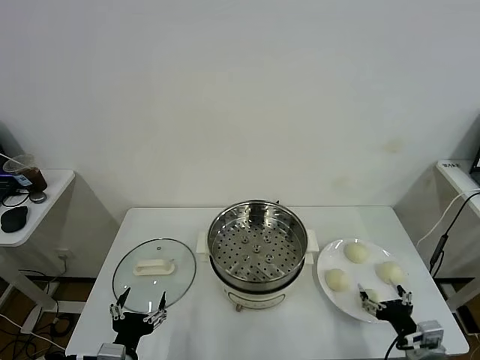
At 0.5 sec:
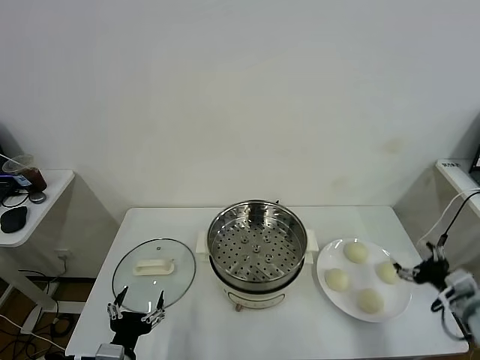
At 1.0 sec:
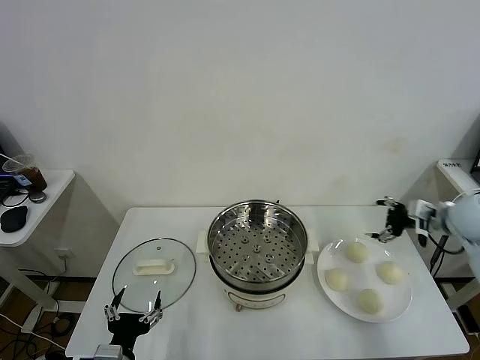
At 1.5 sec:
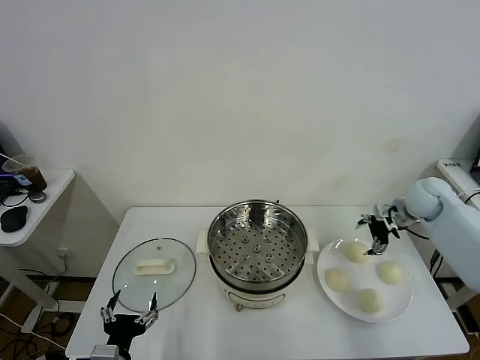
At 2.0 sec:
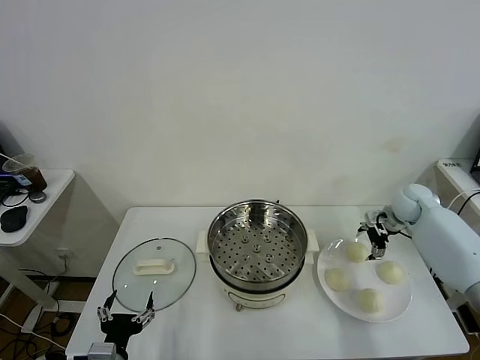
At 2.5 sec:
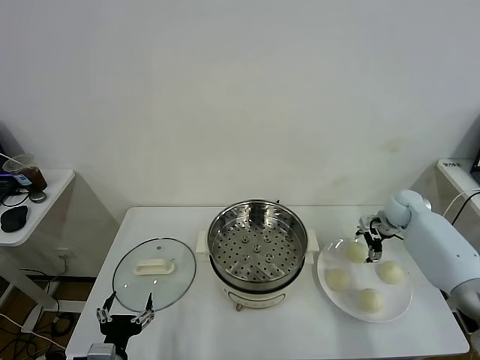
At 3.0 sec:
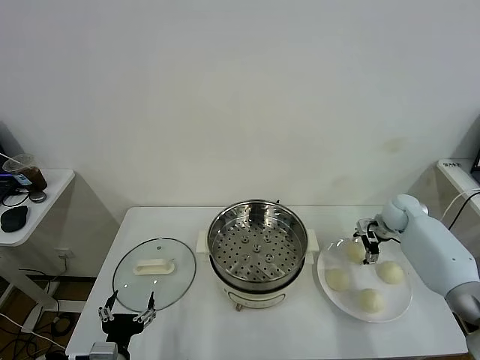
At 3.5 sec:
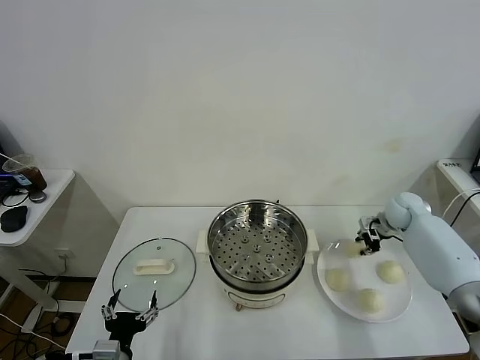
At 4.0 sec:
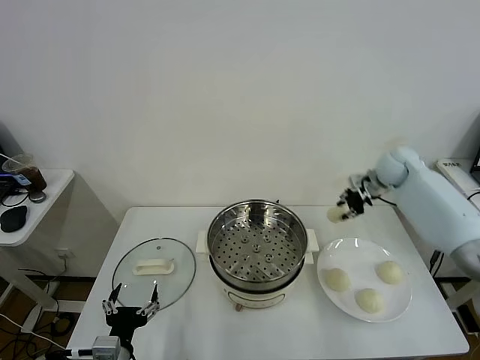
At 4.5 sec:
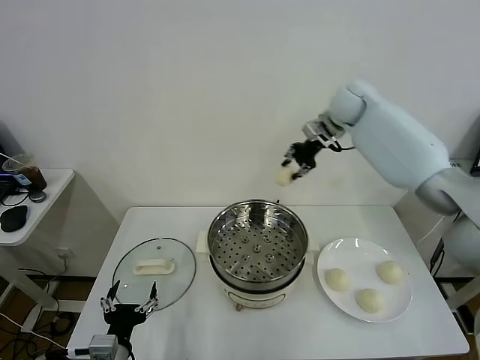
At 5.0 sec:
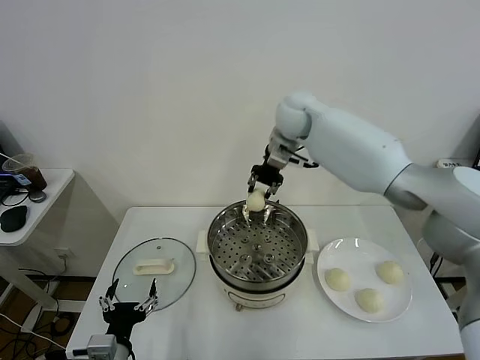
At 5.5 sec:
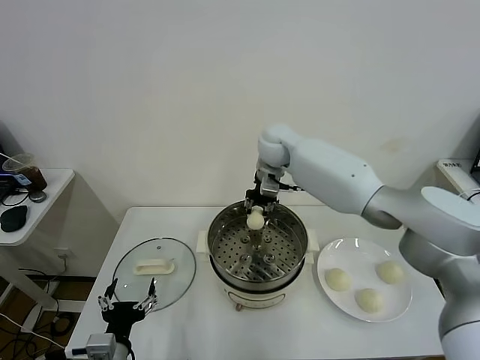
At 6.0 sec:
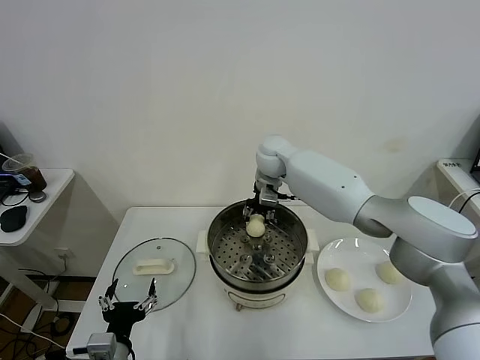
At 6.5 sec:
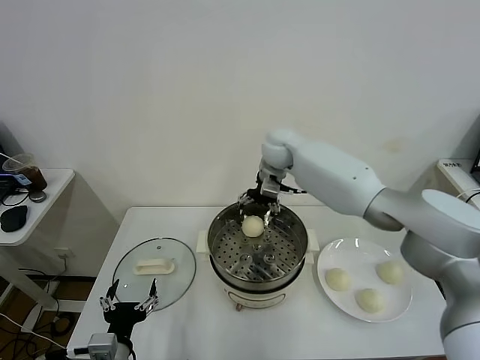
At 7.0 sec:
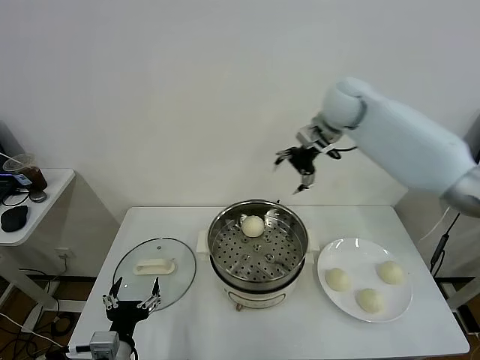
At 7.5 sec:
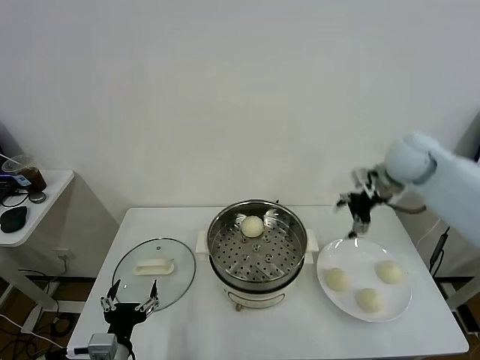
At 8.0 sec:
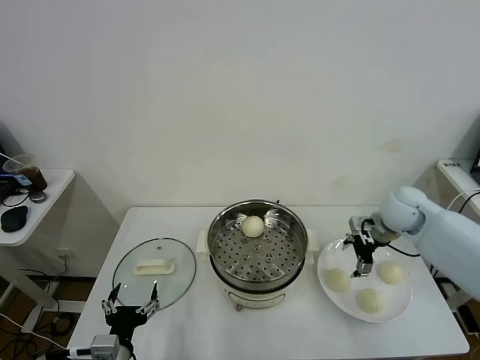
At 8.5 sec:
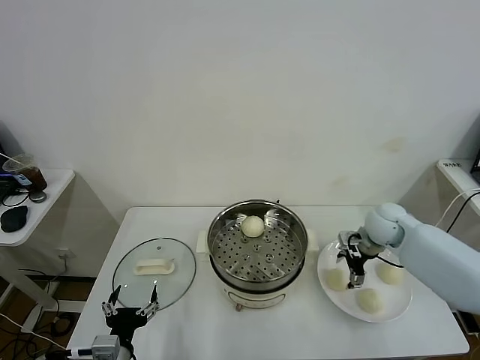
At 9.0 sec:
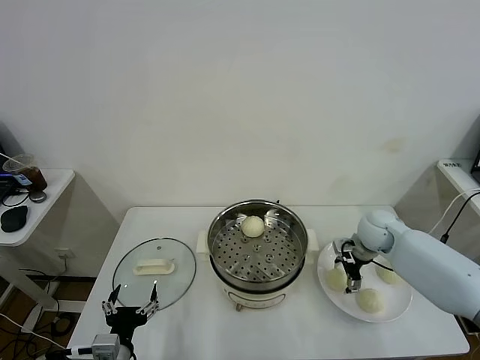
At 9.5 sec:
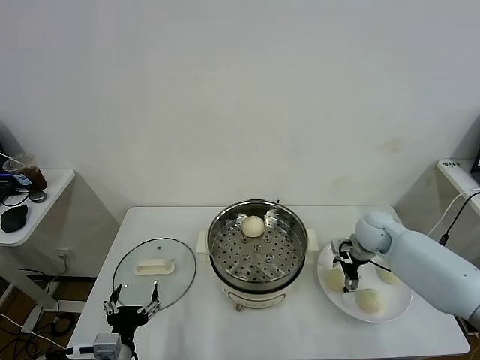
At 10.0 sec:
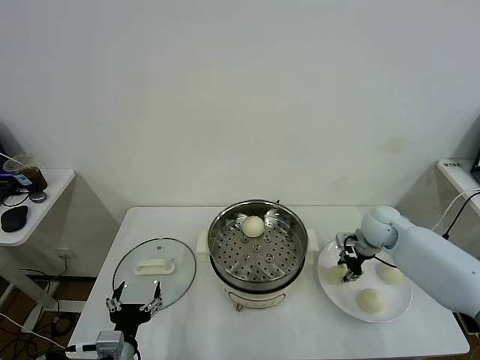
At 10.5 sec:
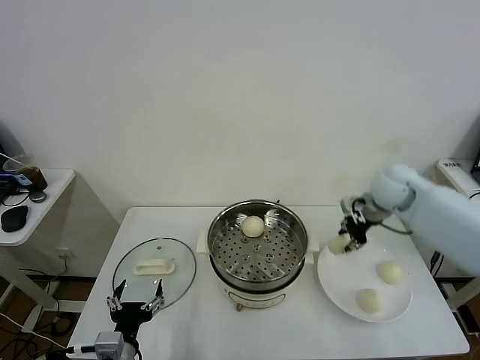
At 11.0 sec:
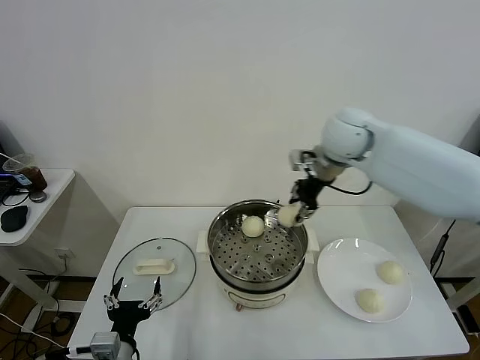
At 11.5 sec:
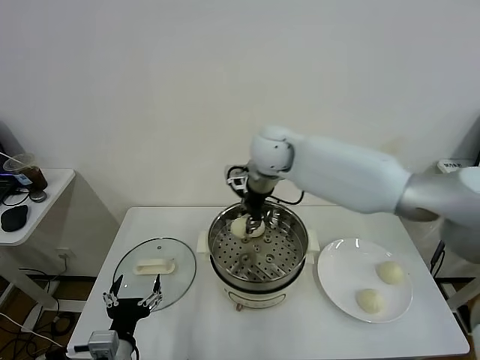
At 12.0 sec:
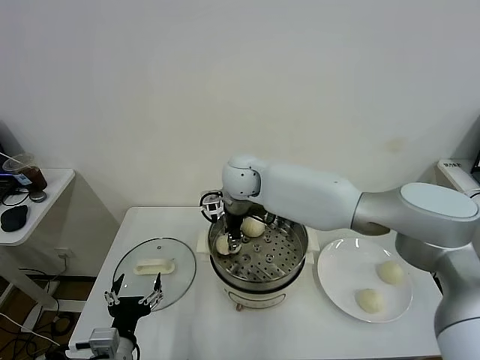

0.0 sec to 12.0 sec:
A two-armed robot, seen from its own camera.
Task of the whole recording: take steamed baozi put them in steamer.
Step, 0.0 sec to 3.0 sec: Grasp the baozi in the plate with right gripper.
Step, 3.5 sec to 6.0 sec: Place the baozi on the steamer with right gripper.
Step, 6.5 sec to 9.5 sec: Grasp the baozi in the plate with right gripper.
2.0 sec to 4.0 sec: The right gripper moves upward, to the left and forward, roughly 10 cm, and closes its fingers.
4.0 sec to 6.0 sec: The right gripper goes approximately 30 cm to the left.
6.0 sec to 8.0 sec: The right gripper goes approximately 30 cm to the right and backward, and opens its fingers.
8.0 sec to 10.0 sec: The right gripper moves downward, about 10 cm, and closes its fingers.
10.0 sec to 12.0 sec: The right gripper travels to the left by some 35 cm.

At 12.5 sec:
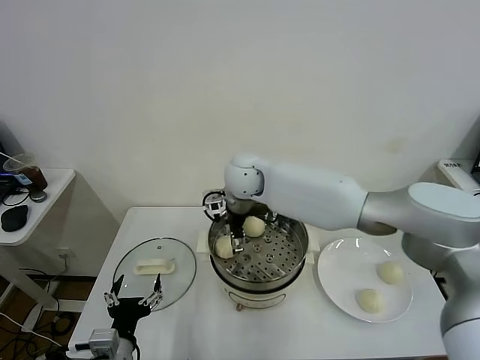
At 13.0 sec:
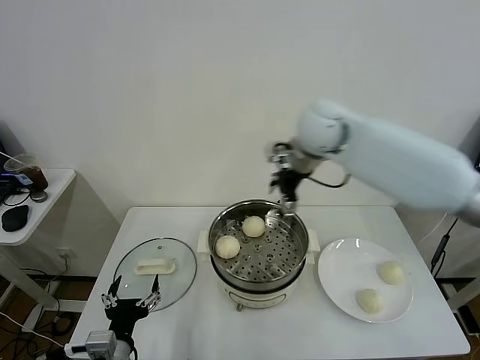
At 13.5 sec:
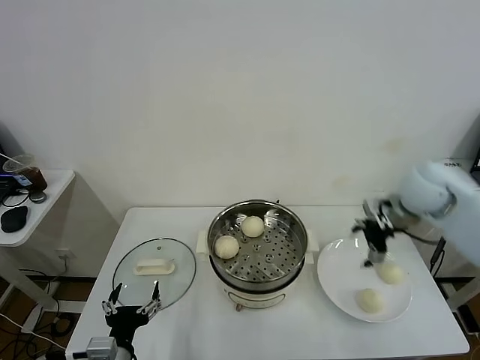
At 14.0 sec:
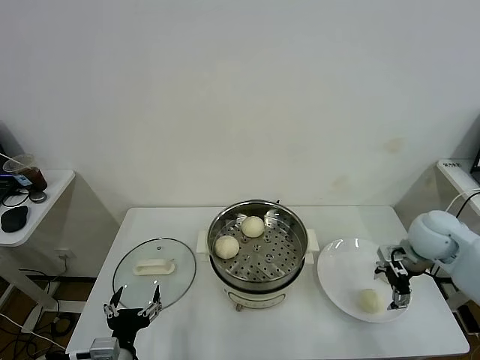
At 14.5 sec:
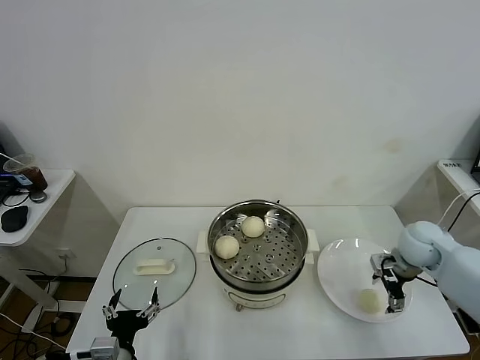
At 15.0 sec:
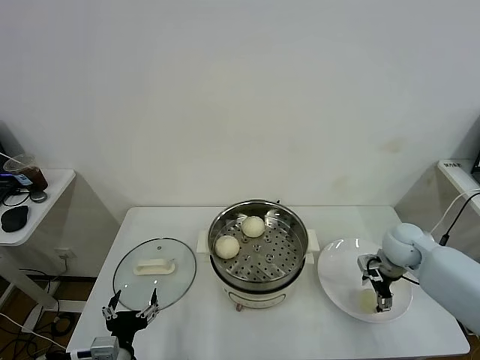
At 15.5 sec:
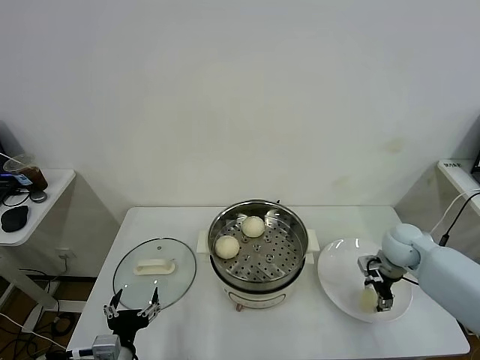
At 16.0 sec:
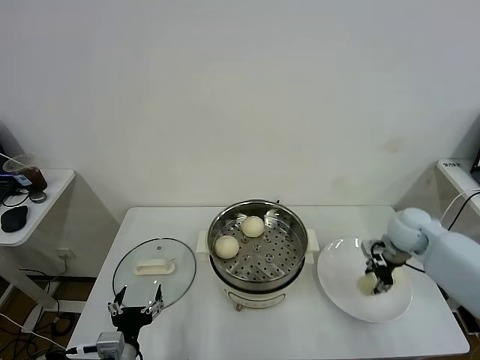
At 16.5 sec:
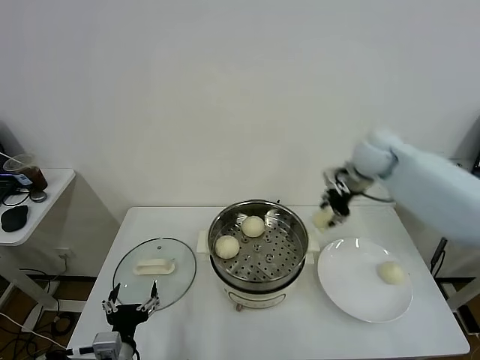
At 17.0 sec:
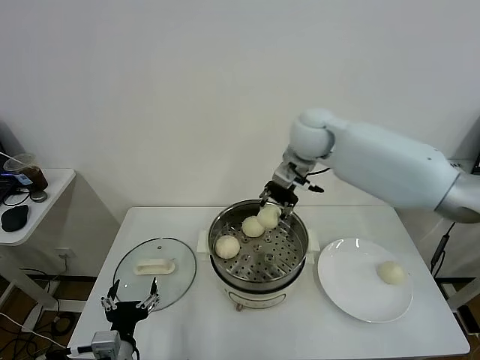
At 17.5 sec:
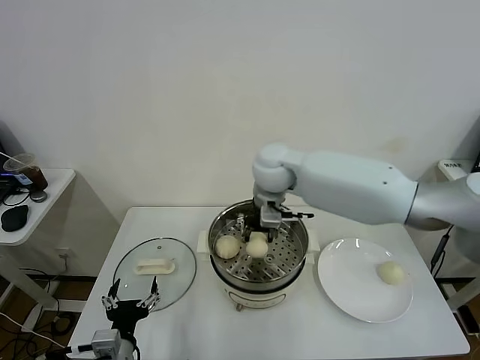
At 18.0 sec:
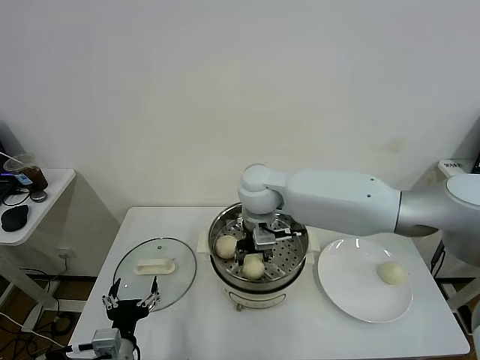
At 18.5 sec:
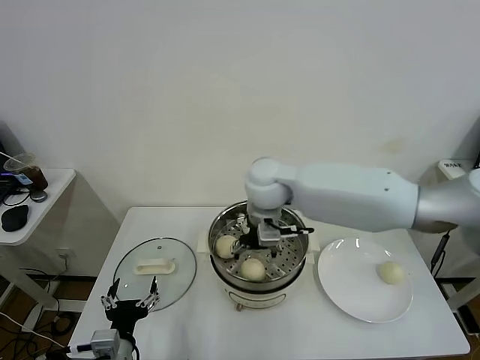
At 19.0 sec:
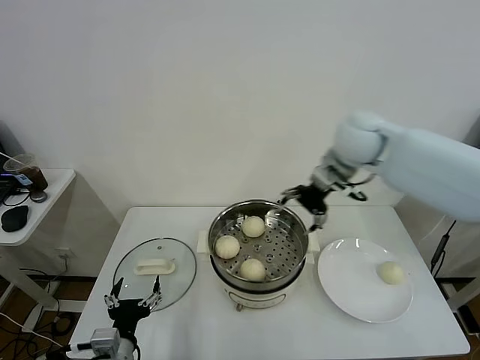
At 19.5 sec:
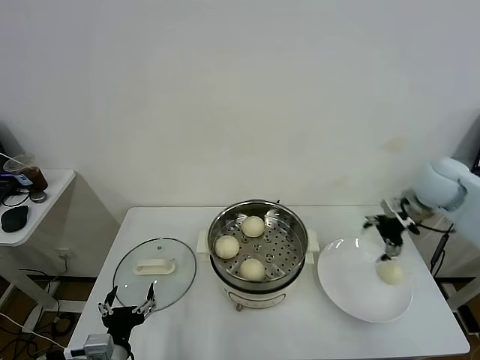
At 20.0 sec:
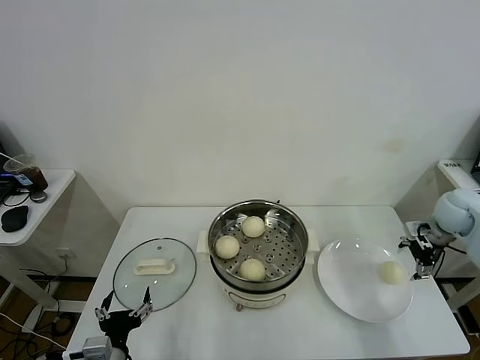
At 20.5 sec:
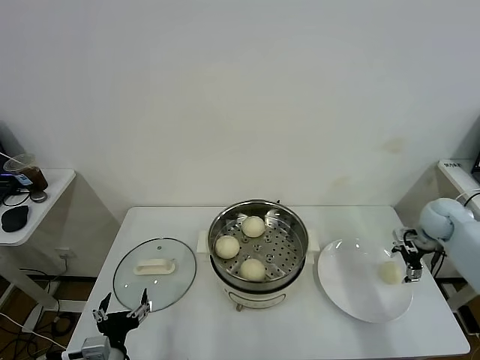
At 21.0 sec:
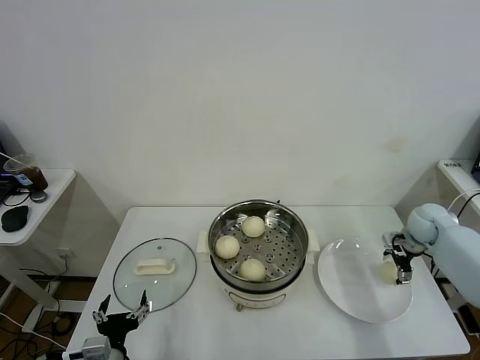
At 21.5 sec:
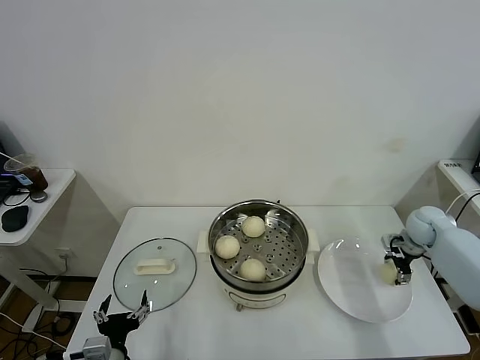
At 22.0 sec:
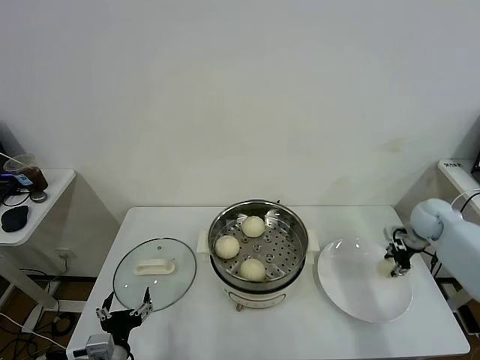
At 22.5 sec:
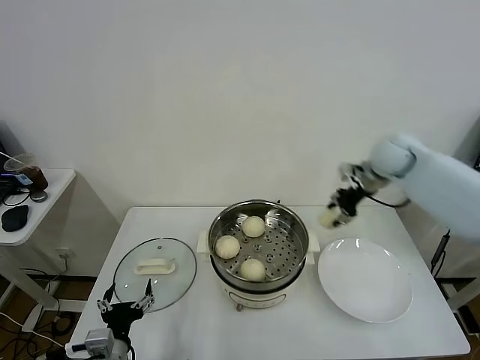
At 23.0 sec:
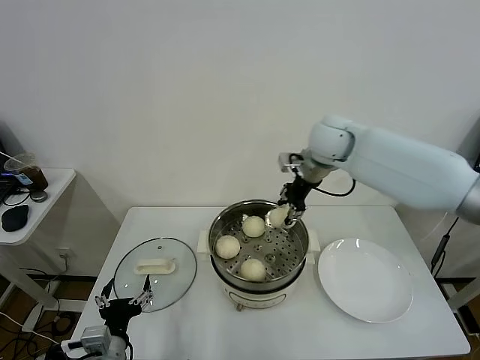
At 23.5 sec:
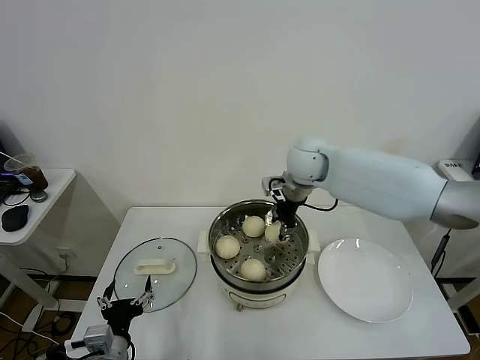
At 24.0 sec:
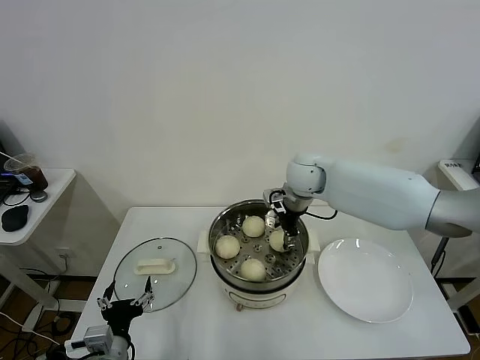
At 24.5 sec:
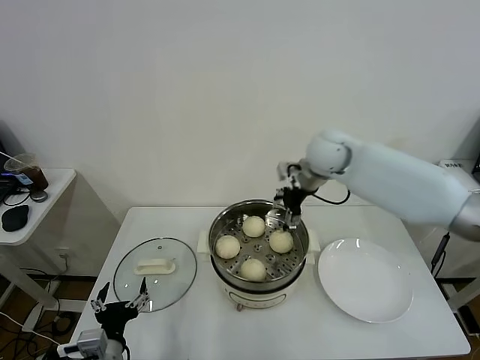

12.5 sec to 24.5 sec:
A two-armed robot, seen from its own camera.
Task of the whole recording: take steamed baozi put them in steamer.
Step, 13.0 sec to 15.5 sec: Grasp the baozi in the plate with right gripper.
Step, 16.0 sec to 18.5 sec: Place the baozi on the steamer with right gripper.
Step, 19.0 sec to 21.5 sec: Grasp the baozi in the plate with right gripper.
Step, 22.0 sec to 24.0 sec: Place the baozi on the steamer with right gripper.
12.5 sec to 14.5 sec: The right gripper travels to the right by some 40 cm.
14.5 sec to 16.5 sec: The right gripper is displaced upward, forward and to the left by about 25 cm, and closes up.
16.5 sec to 18.5 sec: The right gripper goes some 25 cm to the left, and opens up.
18.5 sec to 20.5 sec: The right gripper travels to the right by roughly 40 cm.
20.5 sec to 22.5 sec: The right gripper moves to the left, upward and forward, about 20 cm, and closes.
22.5 sec to 24.5 sec: The right gripper travels to the left by about 15 cm, and opens its fingers.

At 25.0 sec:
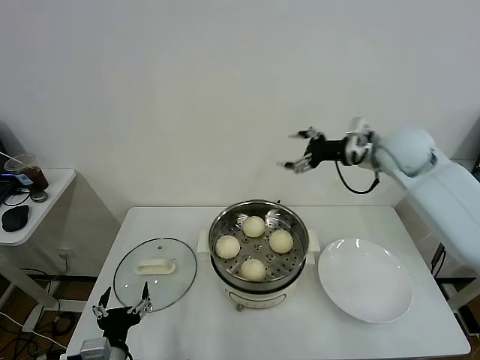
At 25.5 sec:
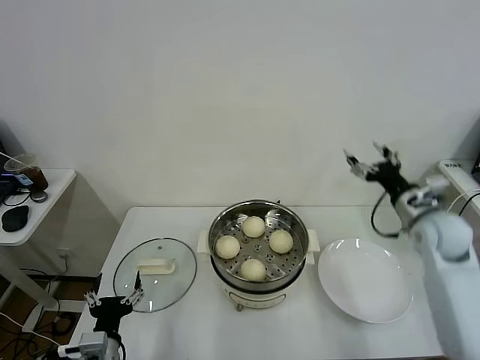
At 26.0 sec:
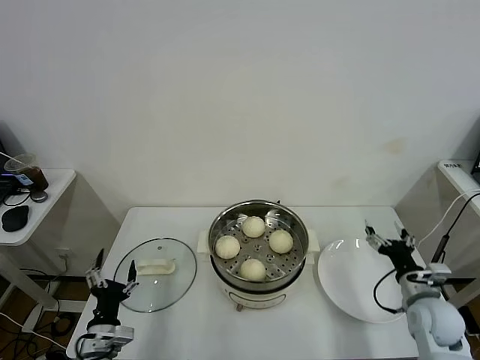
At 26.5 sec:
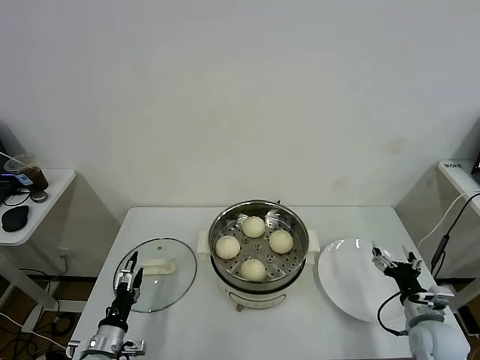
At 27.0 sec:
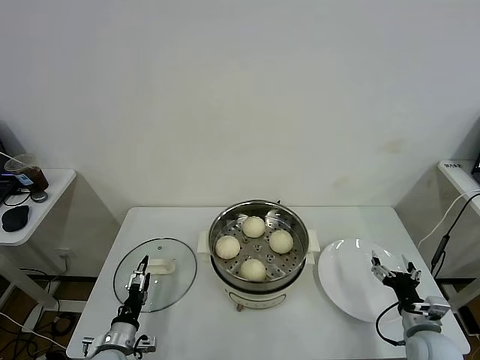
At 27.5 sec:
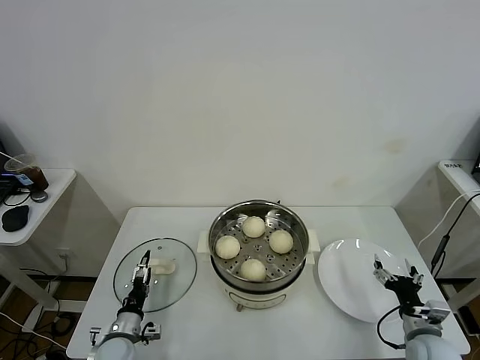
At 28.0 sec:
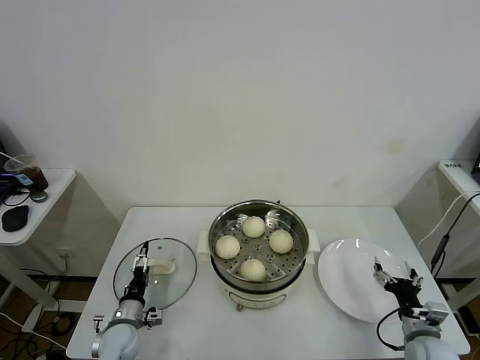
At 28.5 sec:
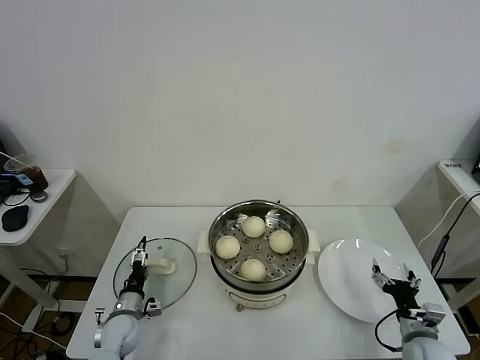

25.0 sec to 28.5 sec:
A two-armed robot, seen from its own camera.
Task of the whole recording: take steamed baozi put them in steamer.
25.0 sec to 27.0 sec: The right gripper heads downward and backward, covering about 40 cm. The left gripper goes about 15 cm downward, forward and to the left.
27.0 sec to 28.5 sec: The left gripper travels forward by approximately 10 cm.
